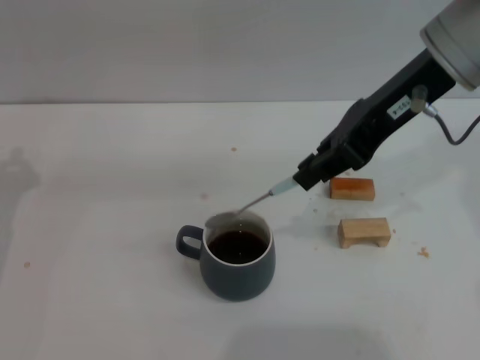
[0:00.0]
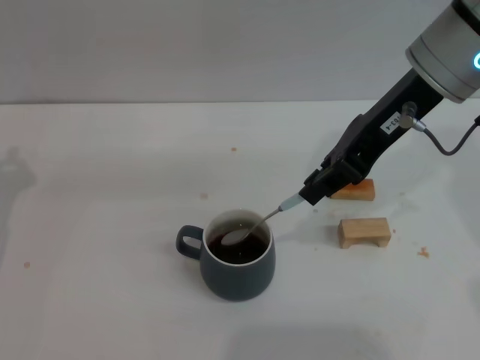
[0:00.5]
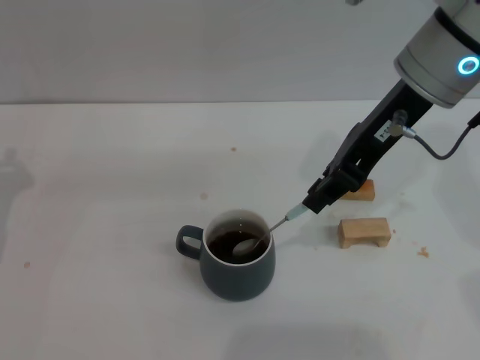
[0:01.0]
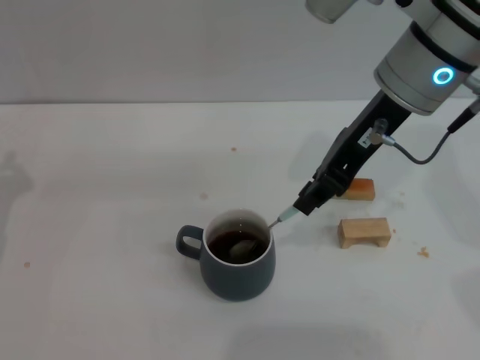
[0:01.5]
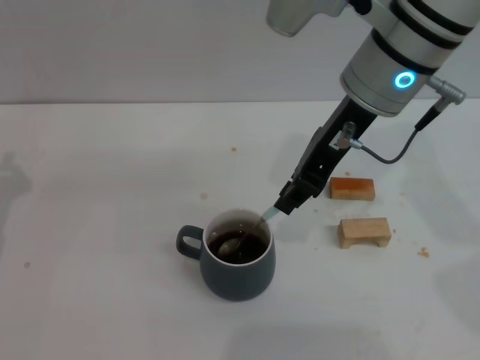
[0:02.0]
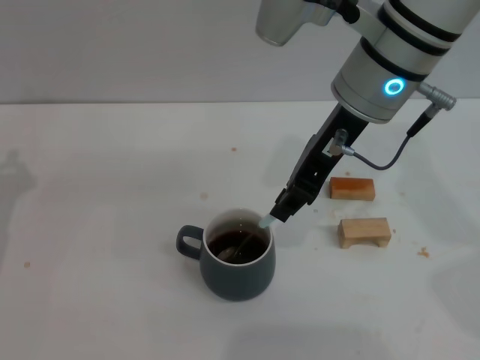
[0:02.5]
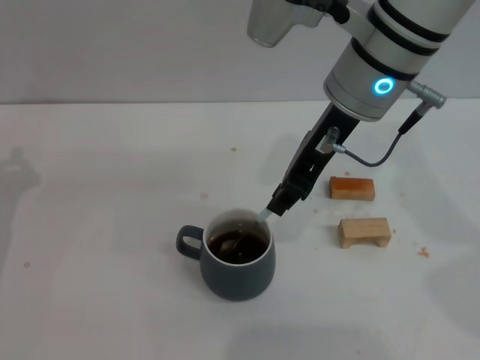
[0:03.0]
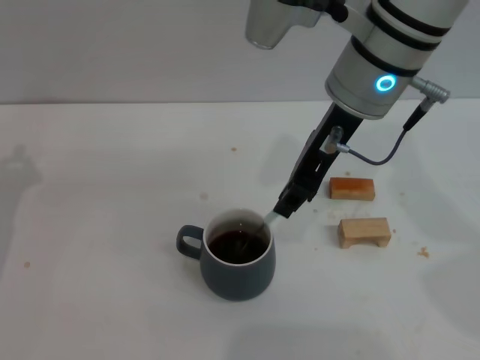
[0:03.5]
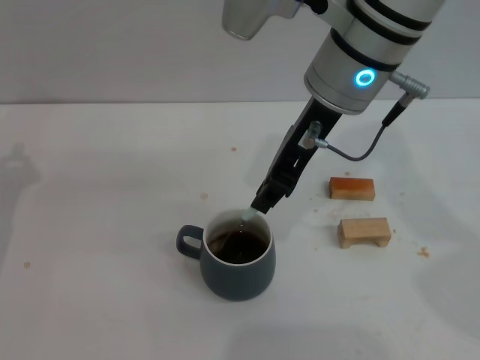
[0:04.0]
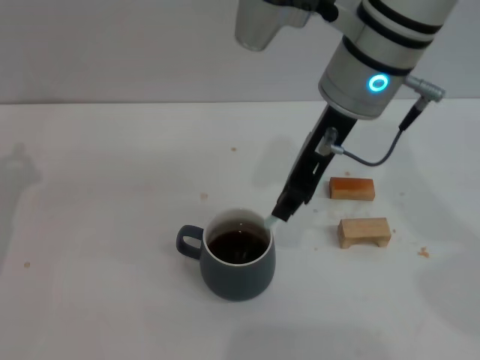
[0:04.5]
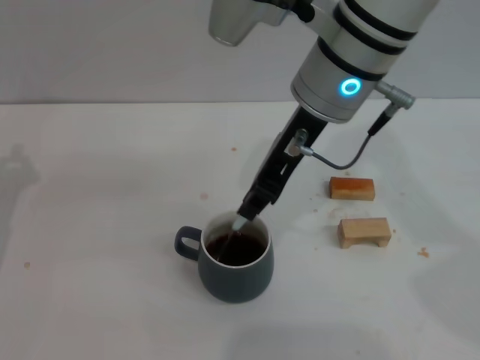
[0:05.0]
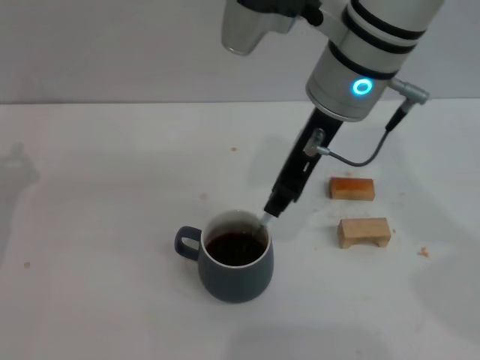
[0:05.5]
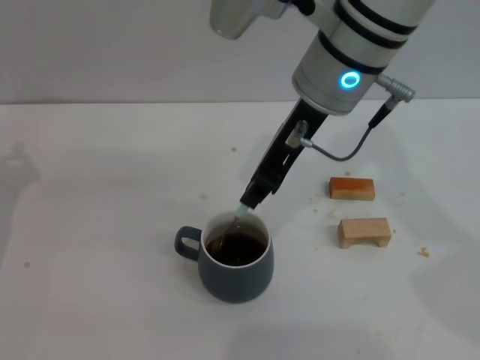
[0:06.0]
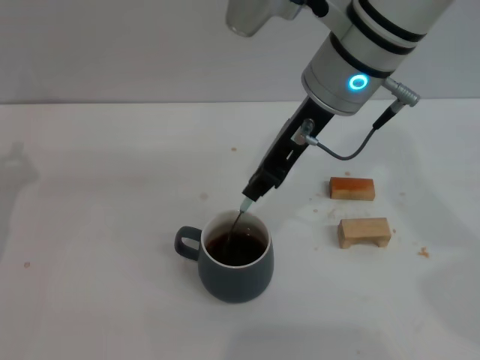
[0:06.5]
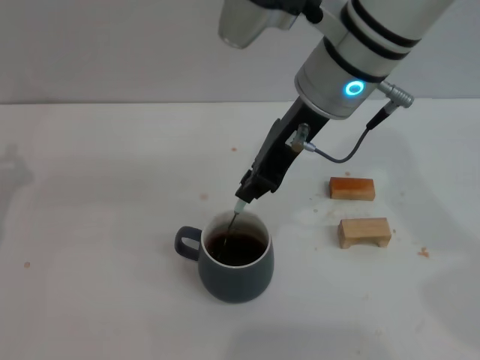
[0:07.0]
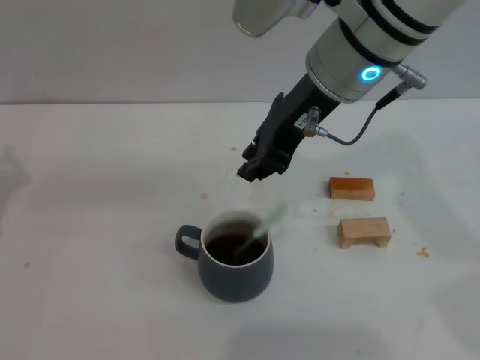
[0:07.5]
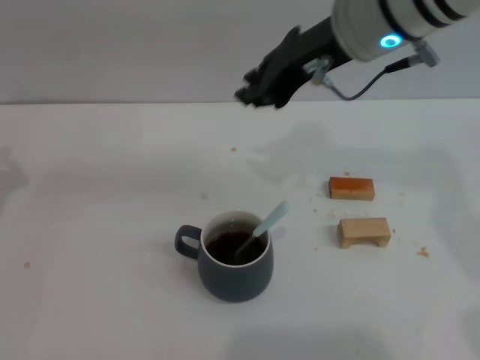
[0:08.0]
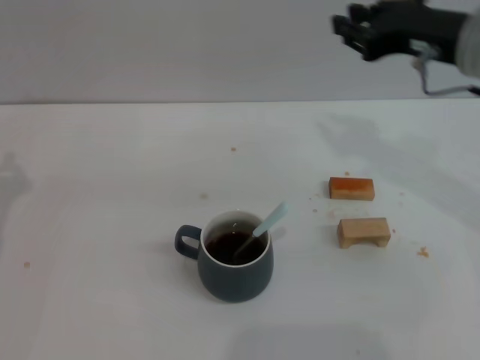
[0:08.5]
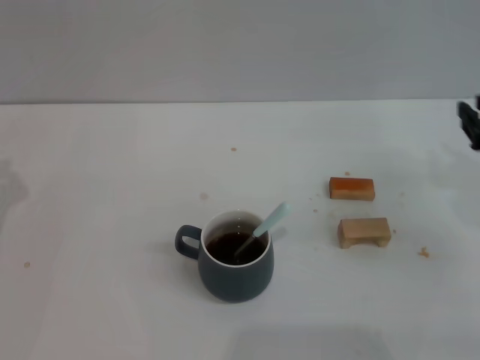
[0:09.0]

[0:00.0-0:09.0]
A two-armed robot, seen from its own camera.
Task of the whole recording: Move the grey cup to the center, lift the blue spoon, stir it three times in the cup, and put the spoon into the cup.
Step, 0:00.0 to 0:07.0: Stir the coffee in the cup with the right gripper.
0:00.0 to 0:02.0: The right gripper goes about 5 cm to the left.
0:02.0 to 0:07.0: The grippers stay close to where they were, moving slightly.
0:07.0 to 0:09.0: The right gripper is displaced to the right and downward by about 25 cm.
